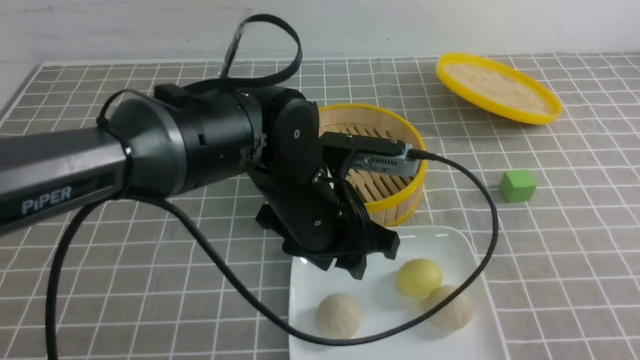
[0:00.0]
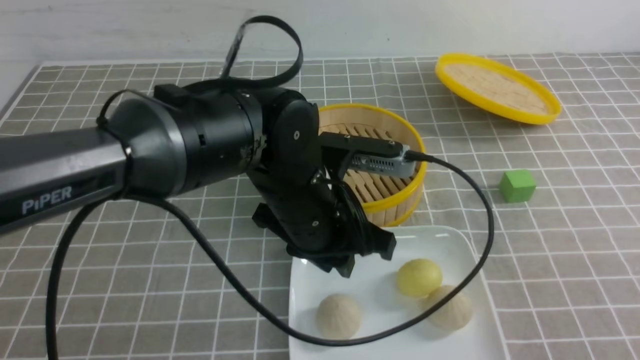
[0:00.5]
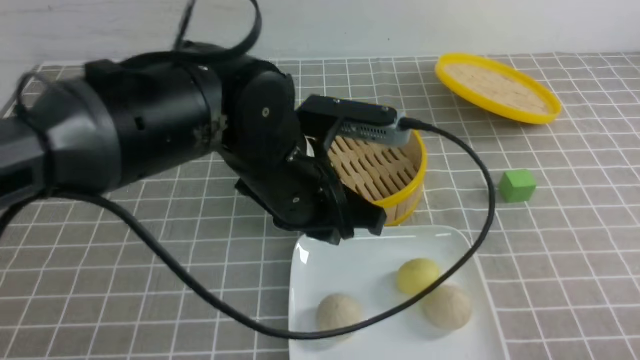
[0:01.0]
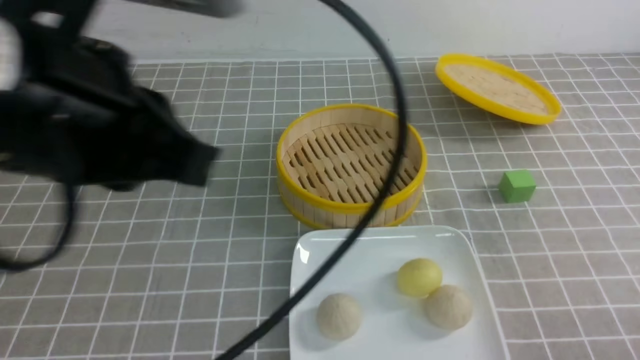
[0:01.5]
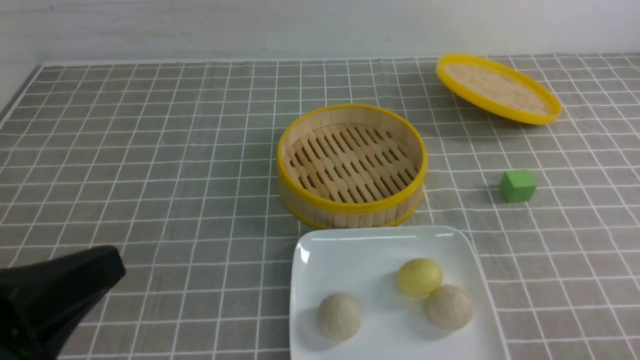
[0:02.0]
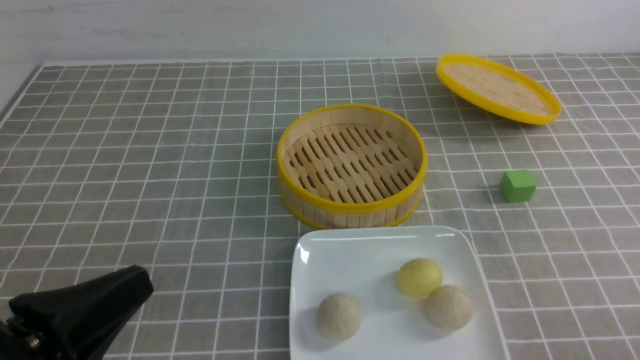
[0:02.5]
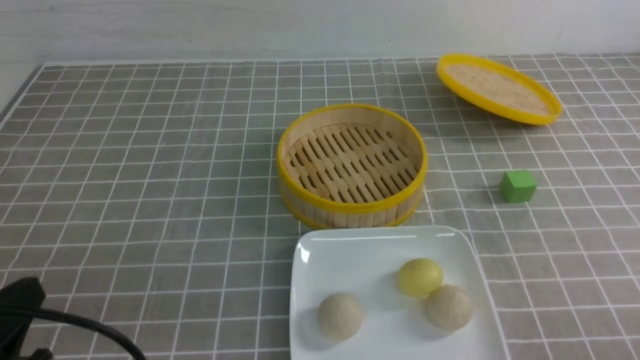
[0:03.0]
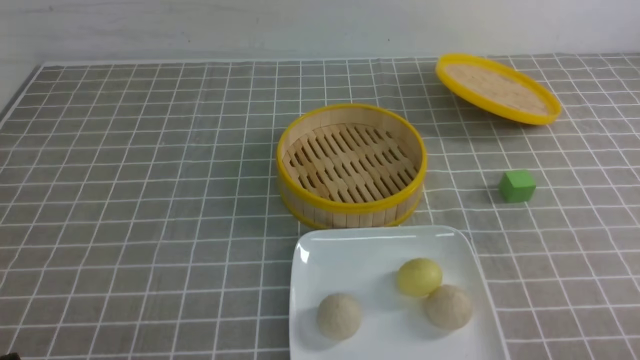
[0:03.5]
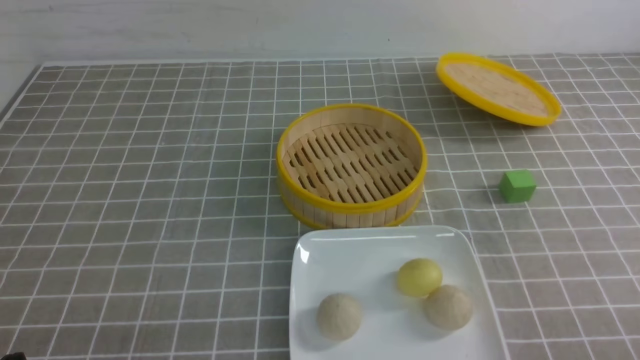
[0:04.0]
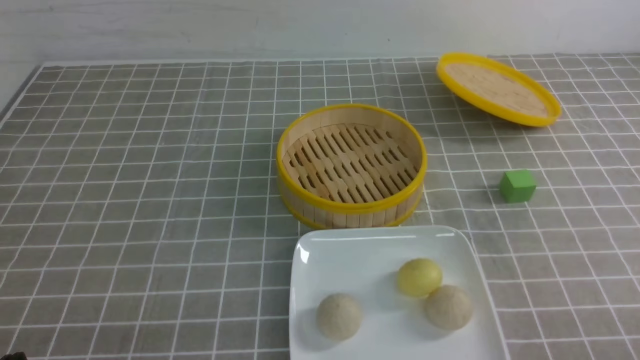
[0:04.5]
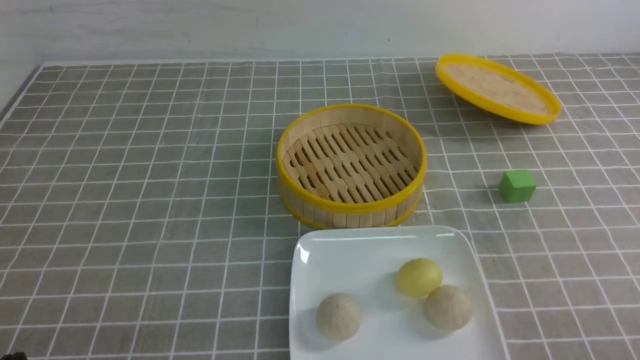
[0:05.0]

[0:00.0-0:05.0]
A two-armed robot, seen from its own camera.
0:00.0 to 0:02.5: The left gripper travels to the left and backward by some 30 cm, and closes its fingers. The right gripper heads downward, covering roughly 10 cm.
0:02.5 to 0:05.0: The left gripper moves downward and to the left, some 10 cm.
